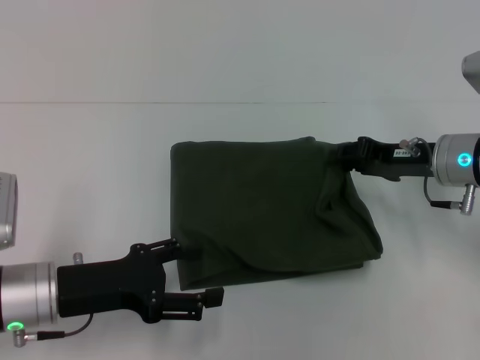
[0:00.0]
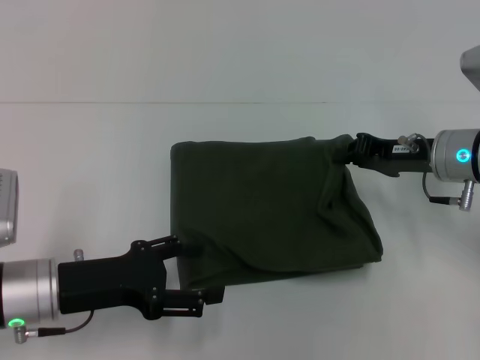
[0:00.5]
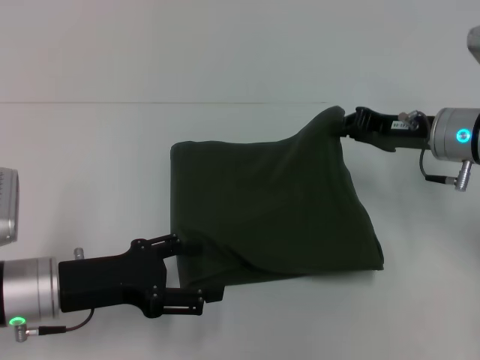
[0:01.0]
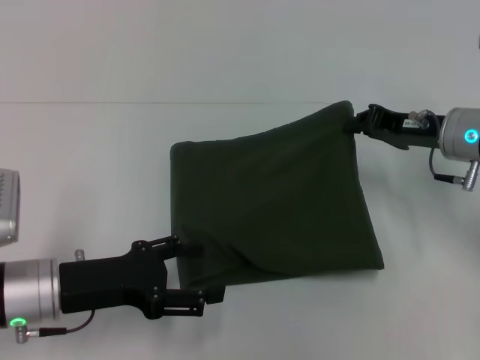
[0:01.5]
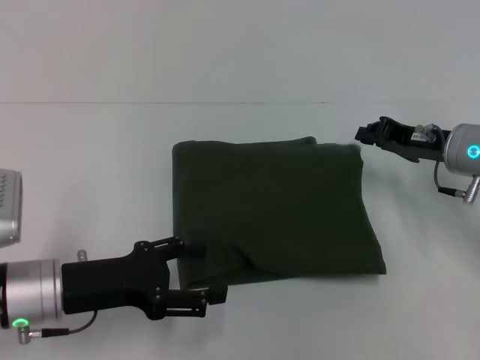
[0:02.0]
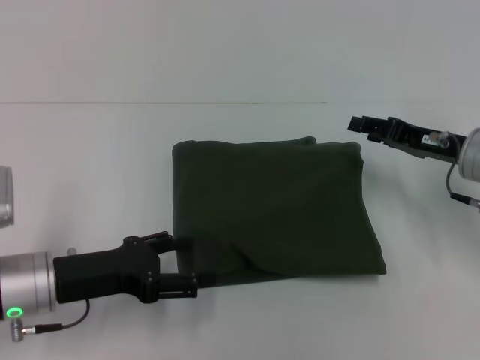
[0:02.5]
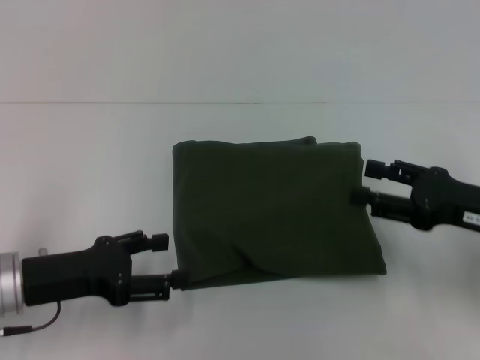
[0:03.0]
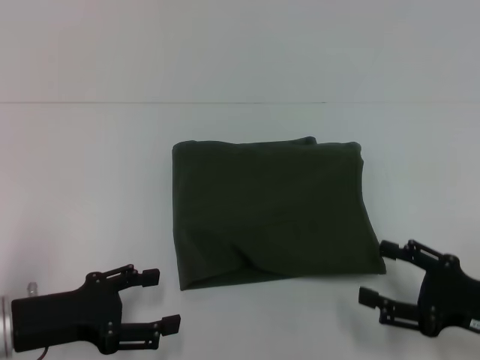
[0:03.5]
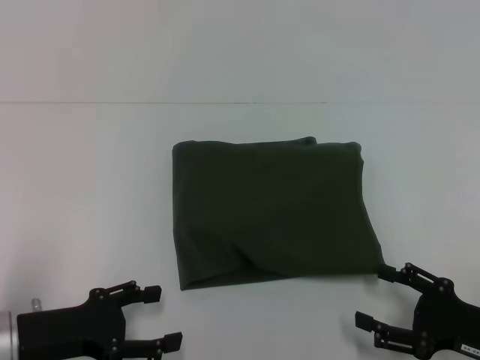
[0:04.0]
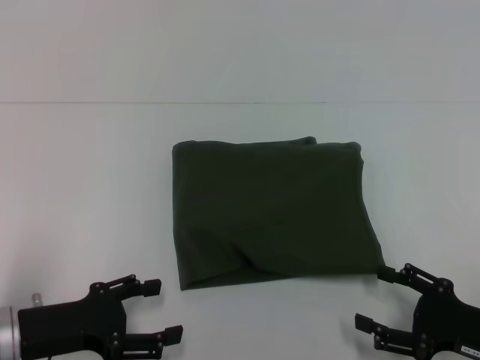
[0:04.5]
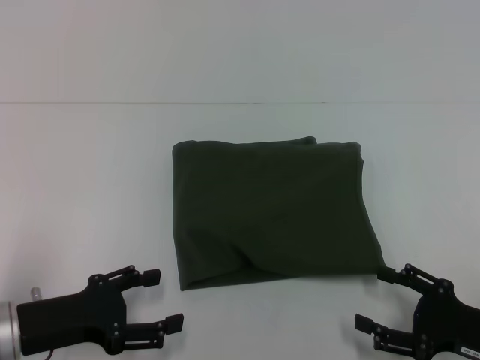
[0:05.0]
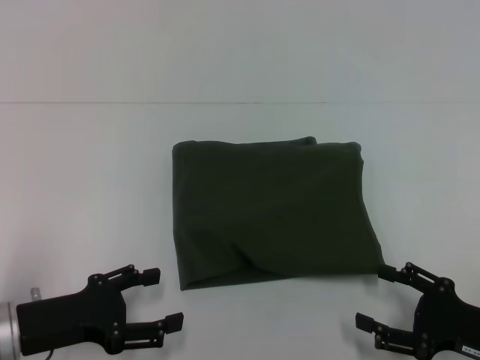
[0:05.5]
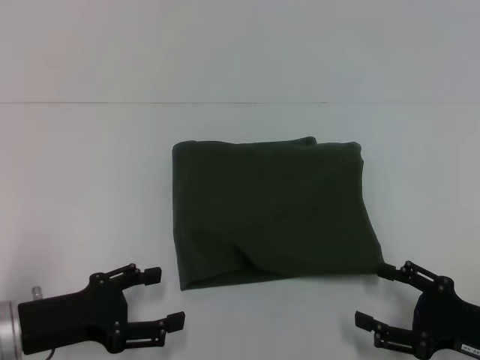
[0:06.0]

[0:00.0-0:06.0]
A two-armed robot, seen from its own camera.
0:00.0 to 0:02.0: The right gripper closes up.
0:02.0 to 0:04.0: The left gripper changes place by about 5 cm. Meanwhile the right gripper shifts roughly 20 cm backward, and opens its fingers.
0:04.0 to 0:06.0: Both grippers stay put.
